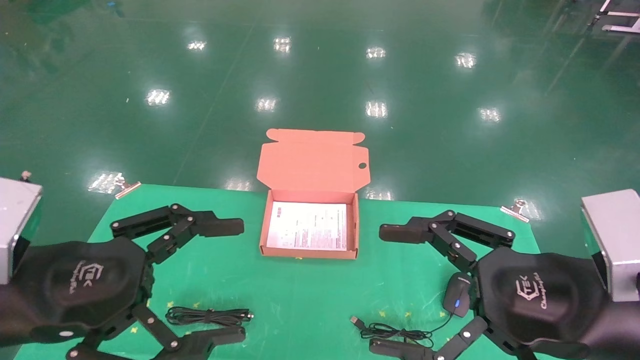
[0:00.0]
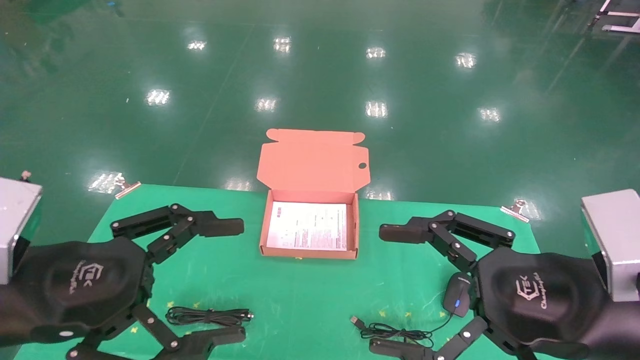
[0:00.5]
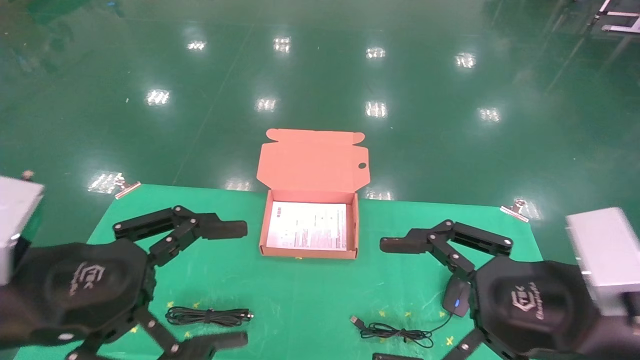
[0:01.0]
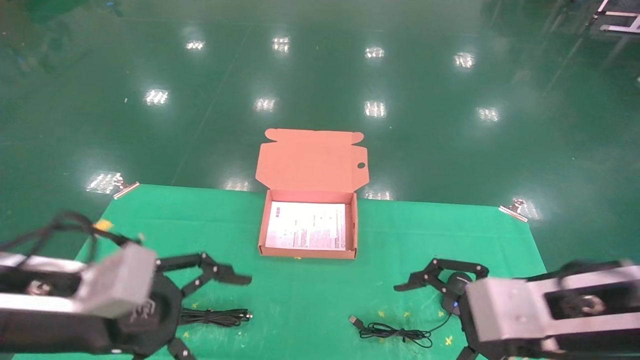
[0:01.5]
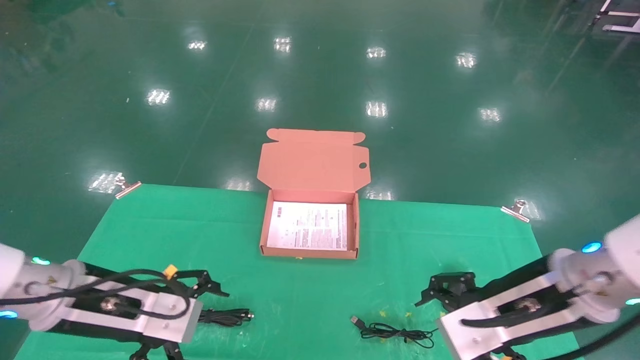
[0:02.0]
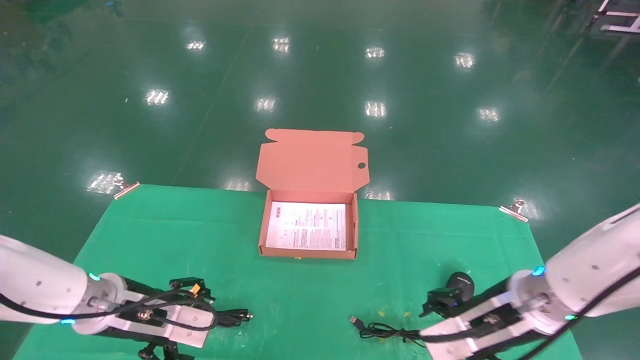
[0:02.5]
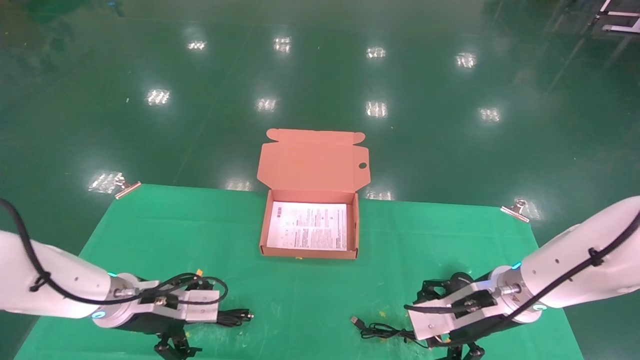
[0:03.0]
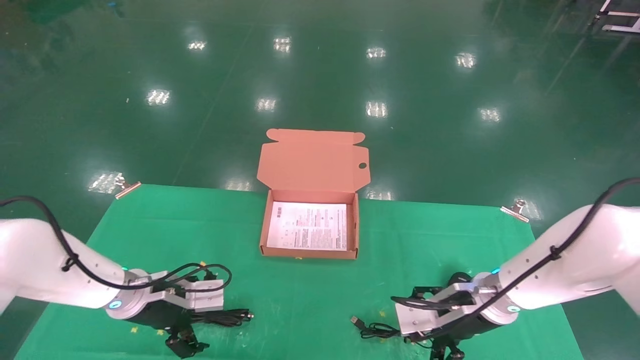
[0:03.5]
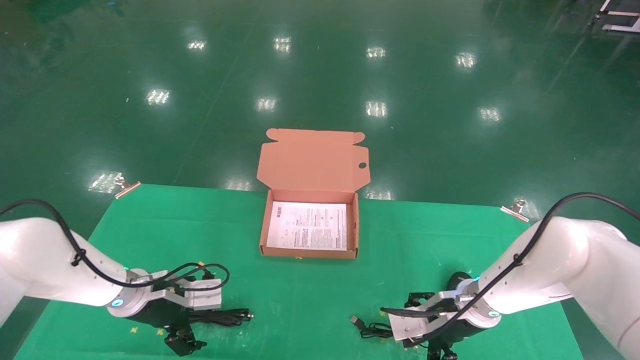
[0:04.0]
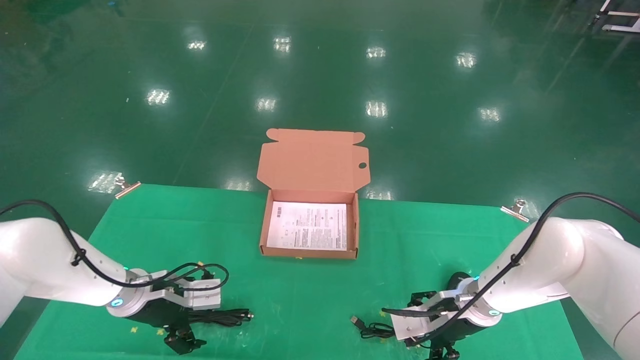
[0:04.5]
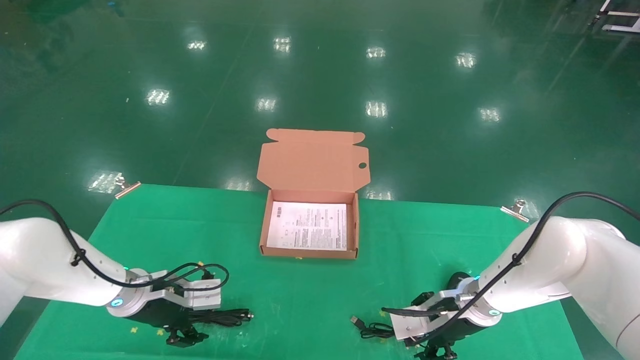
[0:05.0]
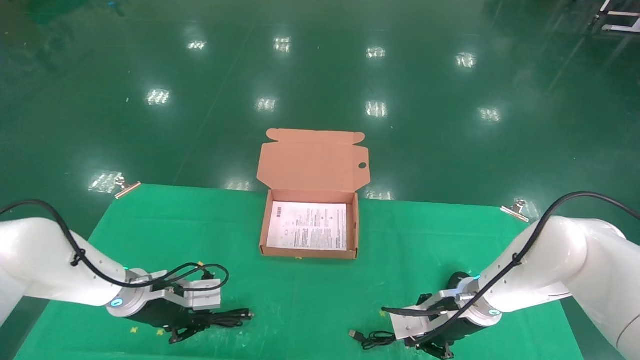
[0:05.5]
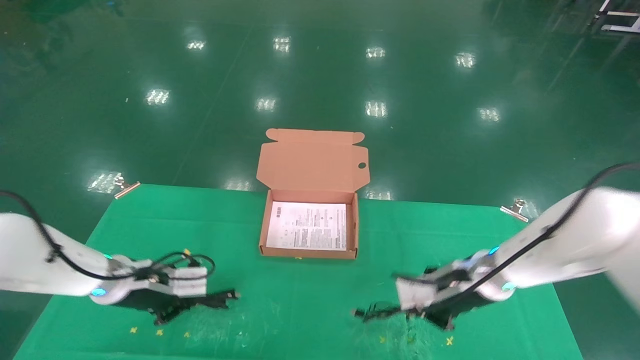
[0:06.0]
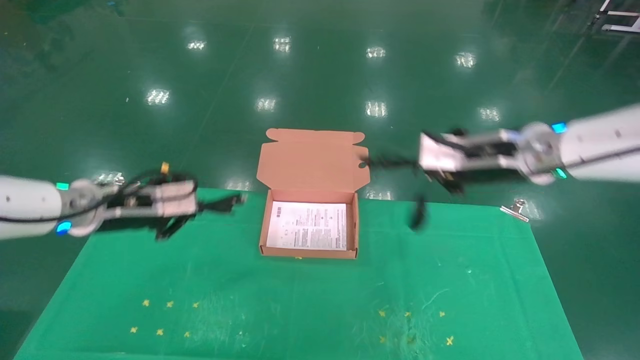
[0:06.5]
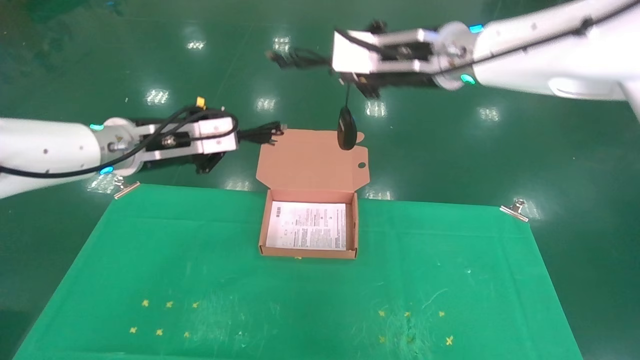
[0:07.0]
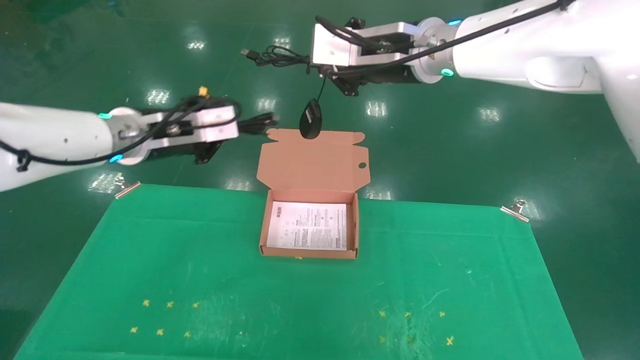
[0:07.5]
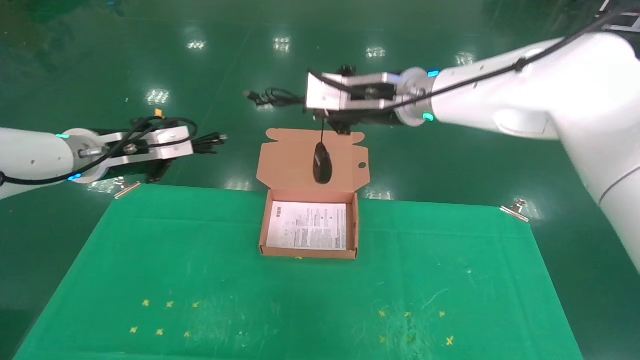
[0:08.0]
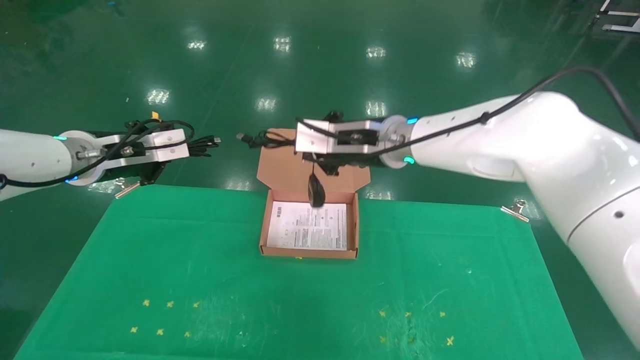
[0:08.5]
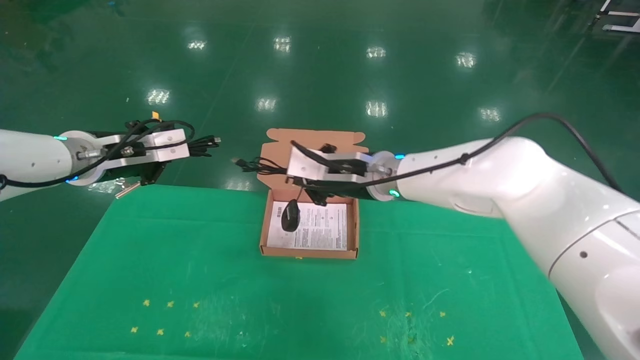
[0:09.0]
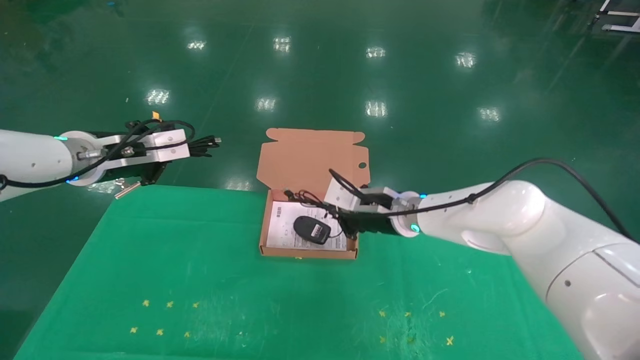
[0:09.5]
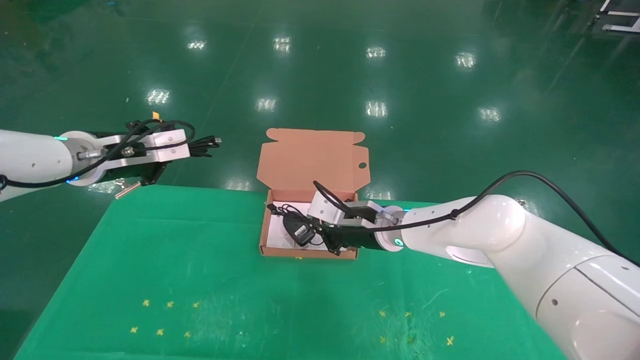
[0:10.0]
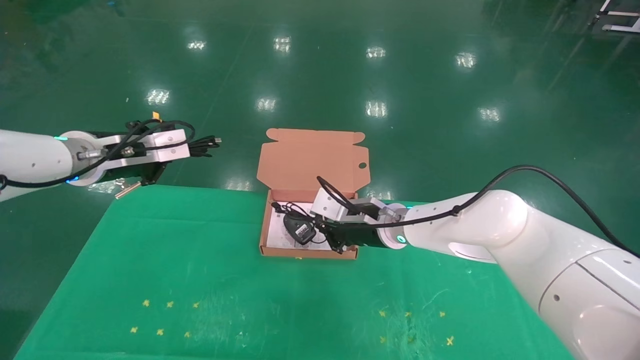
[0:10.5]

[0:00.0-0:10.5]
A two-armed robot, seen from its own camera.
Task of the whole recording: grasp data cable left put into box grasp mouse right put into box.
Step, 0:01.0 to 0:05.5: Grab and pick up both the mouse and power cord from the accessory packaging area at the same time.
0:00.0 to 0:02.0: The right gripper travels forward by roughly 10 cm; the left gripper moves forward and downward, some 10 cm.
0:02.0 to 0:04.0: Both grippers move forward and downward, about 15 cm.
0:04.0 to 0:06.5: The left gripper shifts roughly 15 cm upward, and closes; the right gripper moves upward, roughly 25 cm, and closes up.
0:06.5 to 0:08.5: The right gripper shifts roughly 15 cm to the left. Meanwhile the left gripper travels upward by roughly 5 cm.
0:08.5 to 0:10.5: The right gripper heads downward, covering roughly 15 cm.

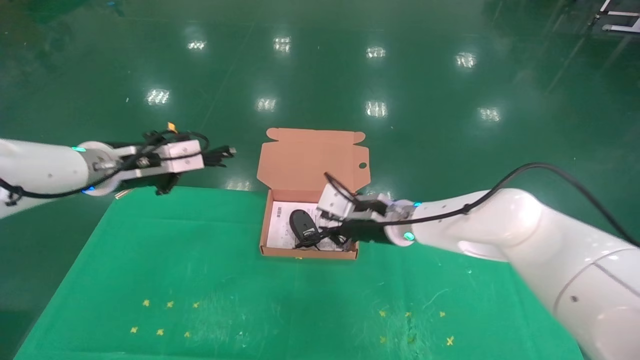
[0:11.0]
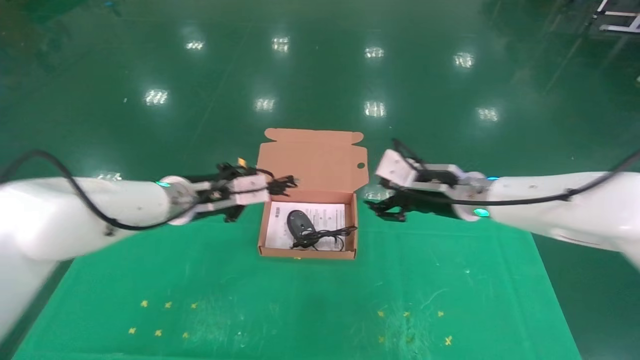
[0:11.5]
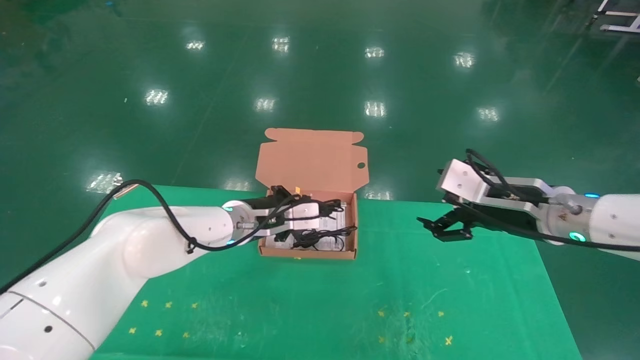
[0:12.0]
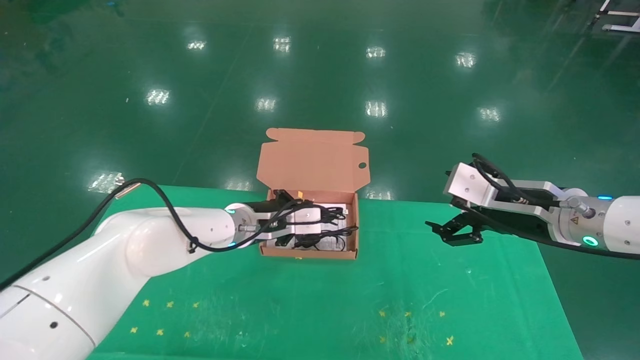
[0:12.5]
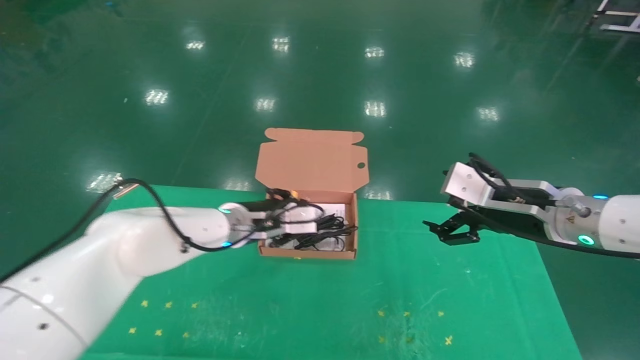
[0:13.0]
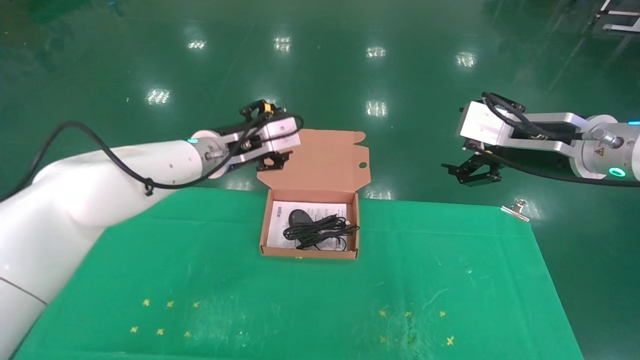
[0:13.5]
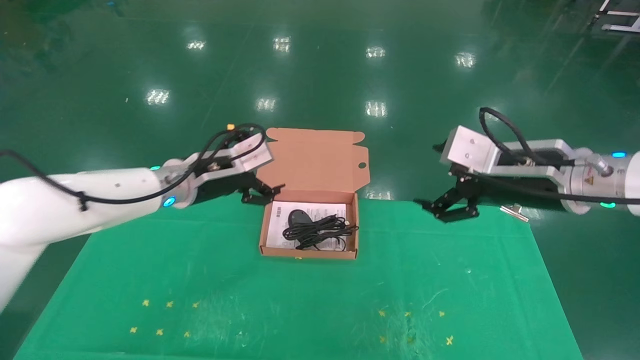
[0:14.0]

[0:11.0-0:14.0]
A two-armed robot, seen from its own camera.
Task of the whole recording: grasp data cable left put into box grasp mouse right put into box.
0:11.0 to 0:12.5: The left gripper heads to the right and downward, covering about 20 cm. Meanwhile the right gripper moves to the right and backward, roughly 20 cm, and opens.
0:12.5 to 0:14.0: The left gripper is displaced to the left and upward by about 10 cm, and opens up.

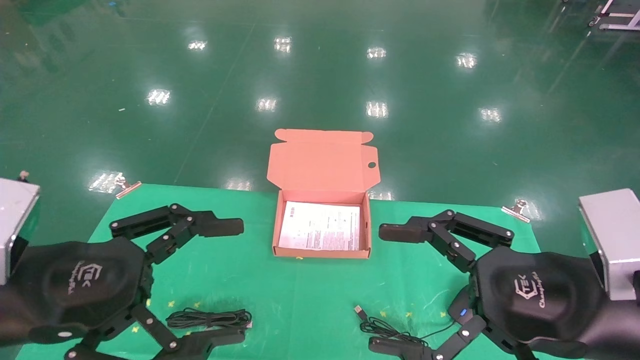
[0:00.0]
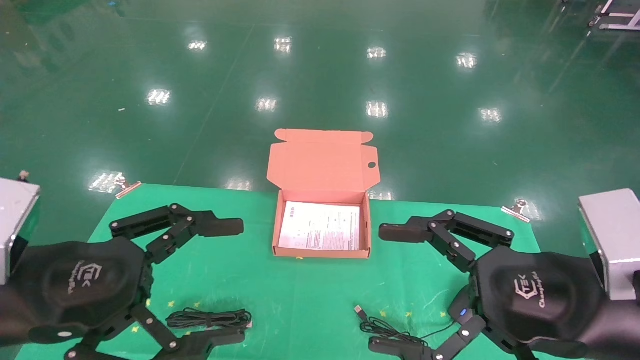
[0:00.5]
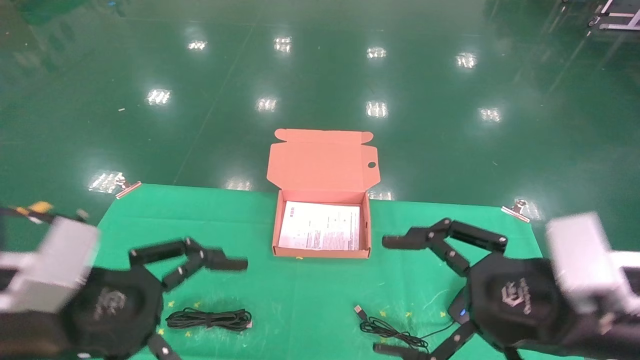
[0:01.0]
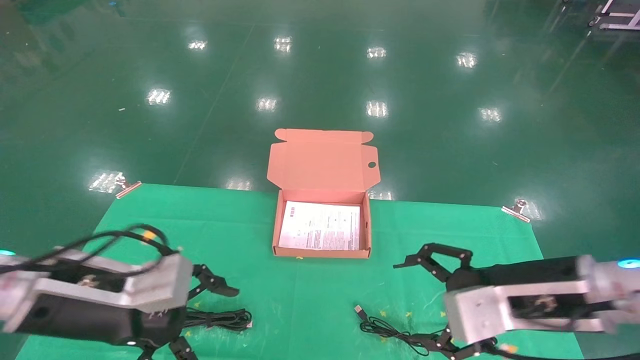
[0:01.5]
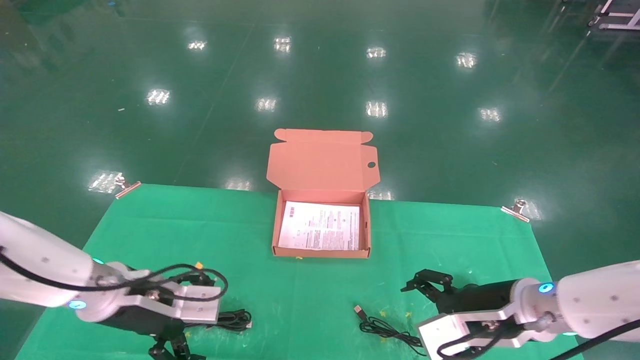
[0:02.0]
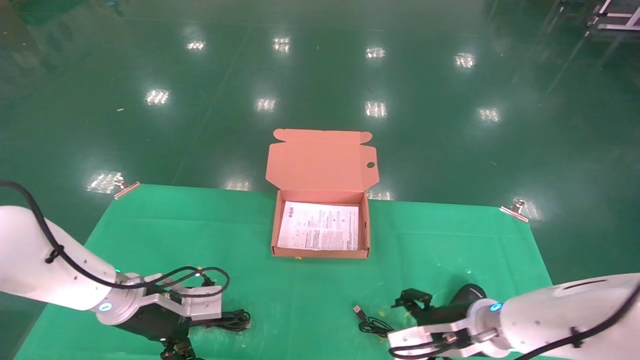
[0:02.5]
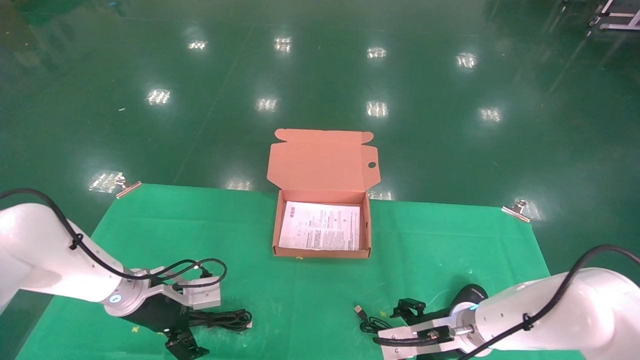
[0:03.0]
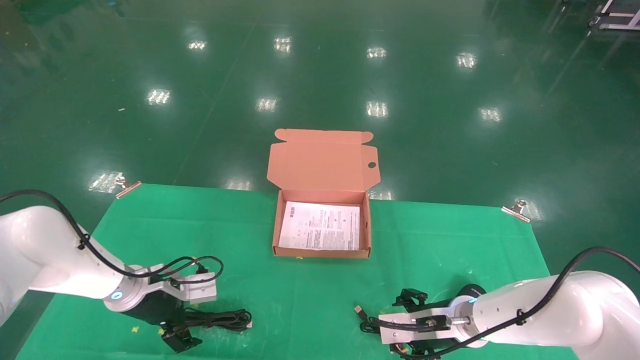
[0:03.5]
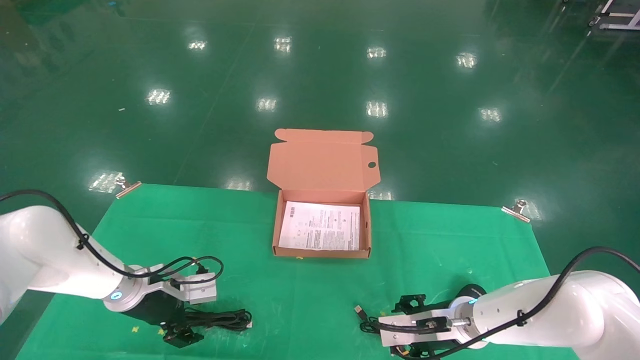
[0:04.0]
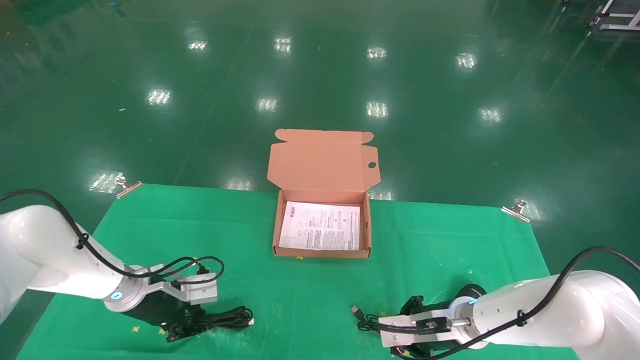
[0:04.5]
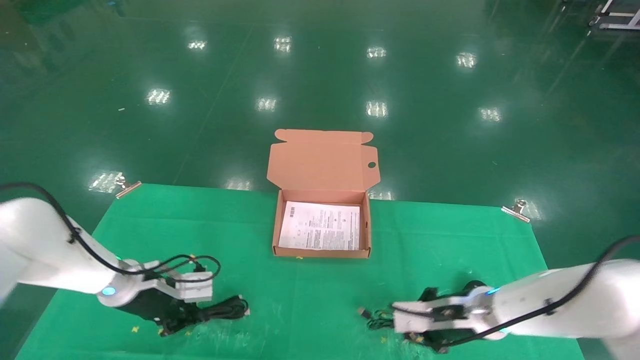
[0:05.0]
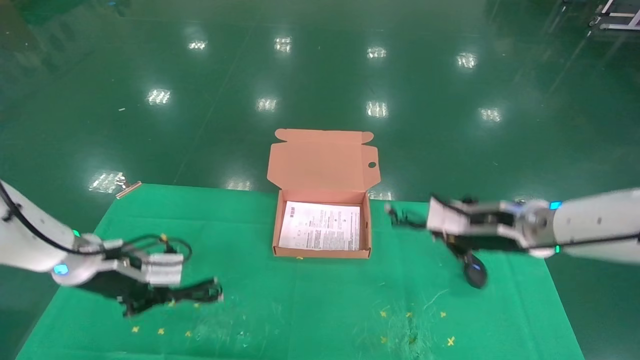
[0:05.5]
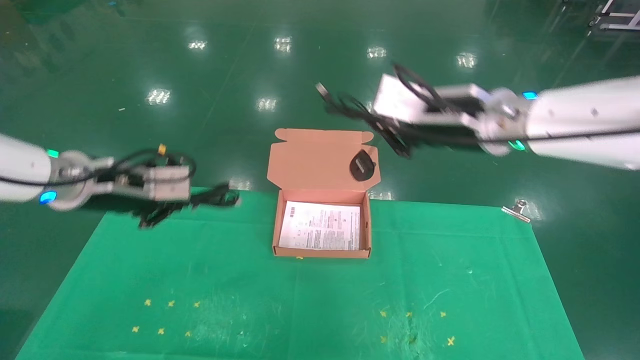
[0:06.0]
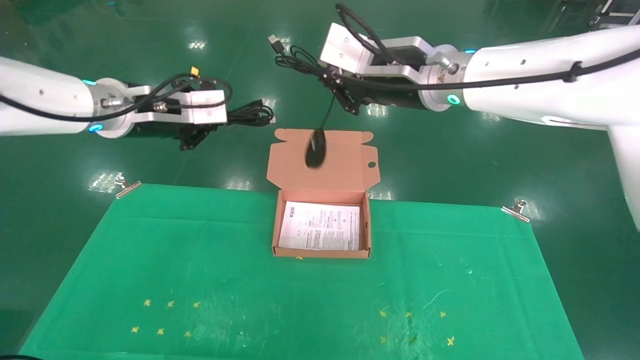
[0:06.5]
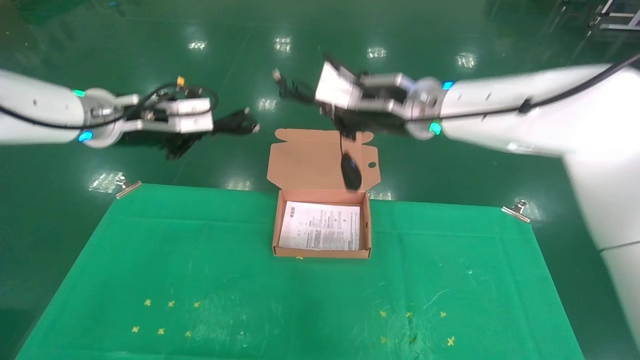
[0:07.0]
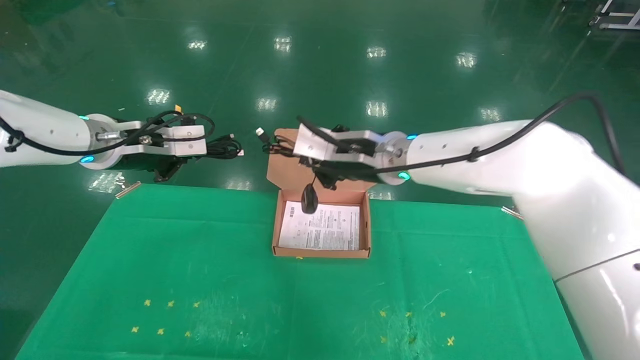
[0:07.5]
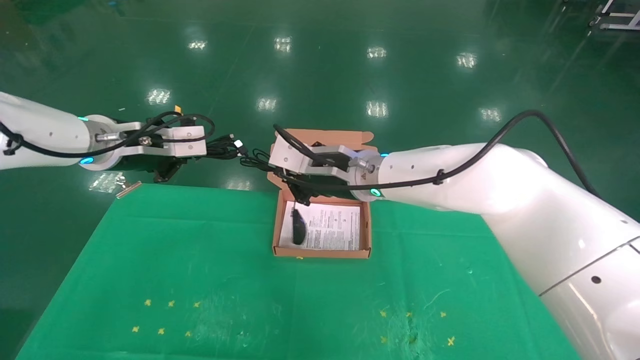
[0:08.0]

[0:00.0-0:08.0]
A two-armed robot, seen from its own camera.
Task of the whole recording: grasp data cable left put into box grasp mouse right put into box.
Step, 0:01.5 to 0:06.0: Grab and pick up both the mouse and power cord from the accessory packaging area at the same time.
0:00.0 to 0:02.0: The grippers both shift forward and downward by some 20 cm.
0:02.0 to 0:04.0: The right gripper moves downward and forward, about 10 cm. The left gripper moves forward and downward, some 10 cm.
0:04.0 to 0:06.0: Both grippers travel together upward, about 25 cm. The left gripper closes; the right gripper closes.
0:06.0 to 0:08.0: The right gripper shifts approximately 15 cm to the left, downward and forward.
